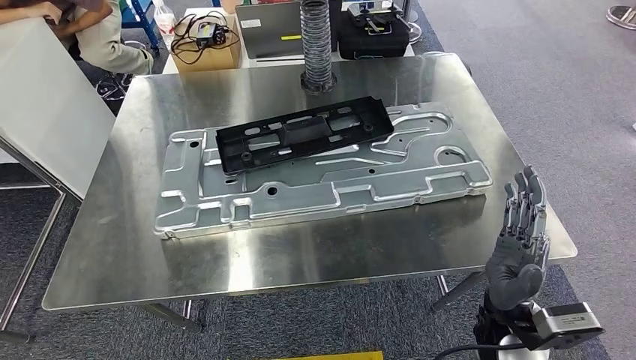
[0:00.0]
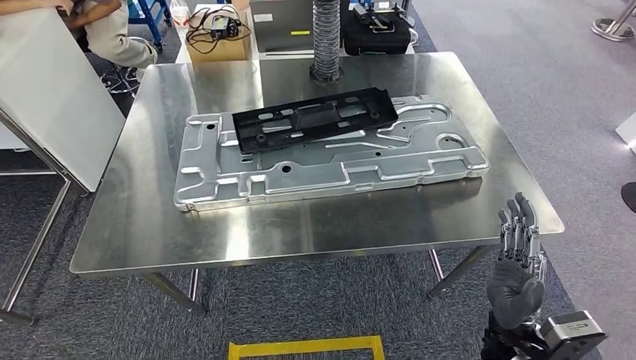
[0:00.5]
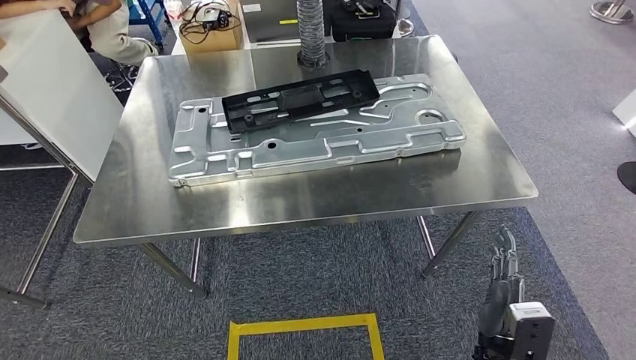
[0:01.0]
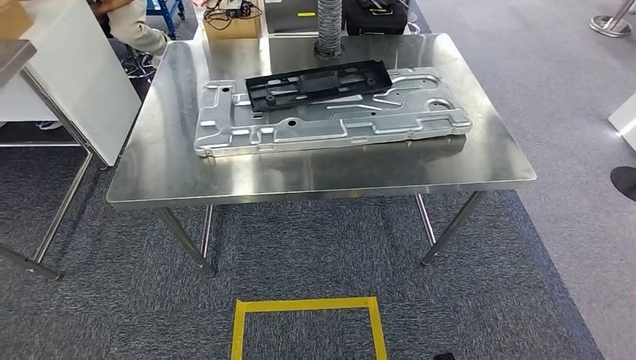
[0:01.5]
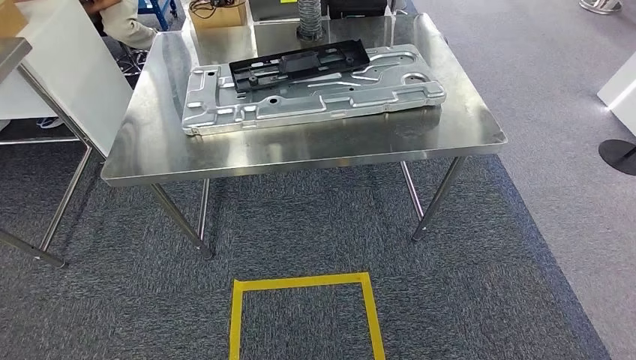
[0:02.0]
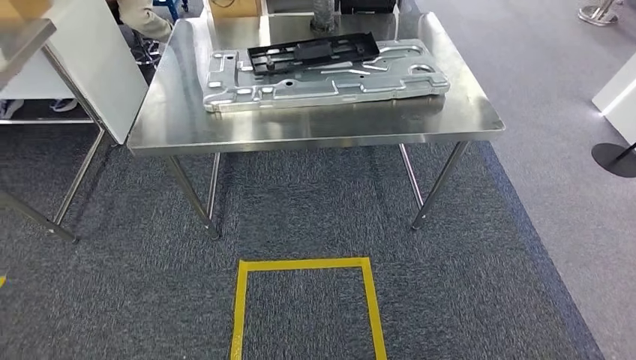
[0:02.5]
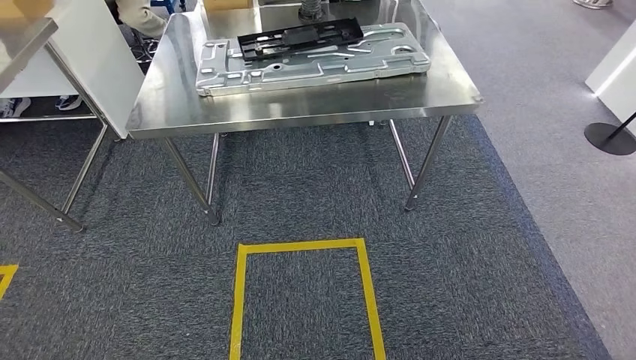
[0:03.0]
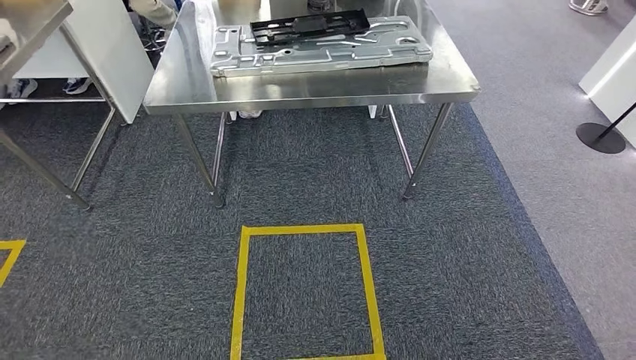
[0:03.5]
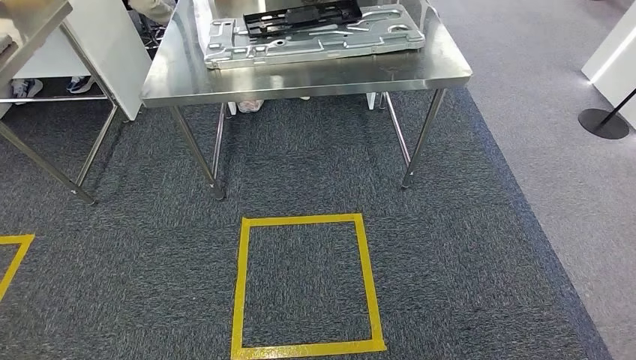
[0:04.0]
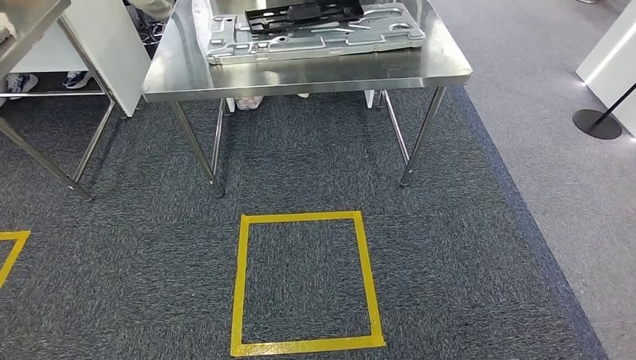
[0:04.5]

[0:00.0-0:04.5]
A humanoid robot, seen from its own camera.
Step, 0:00.0 to 0:04.5: Move to the initial position at the workbench.
